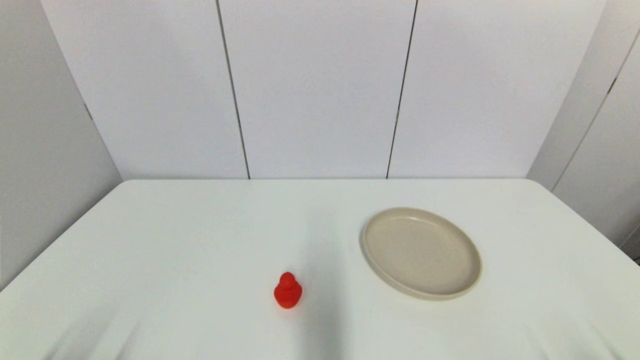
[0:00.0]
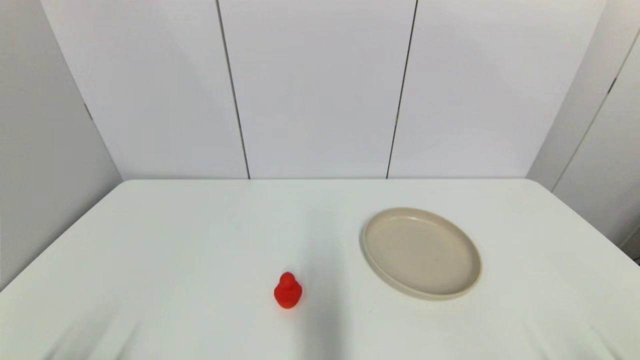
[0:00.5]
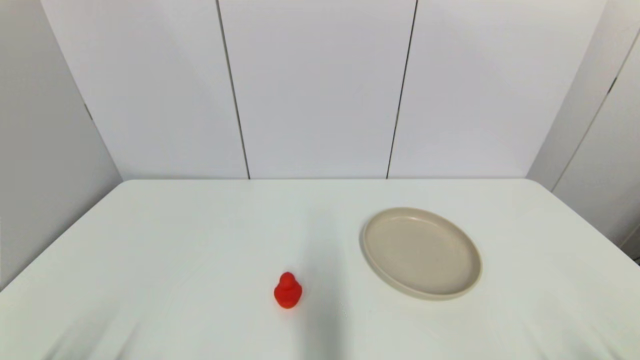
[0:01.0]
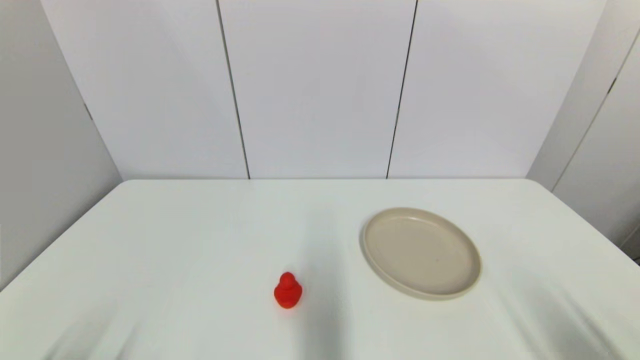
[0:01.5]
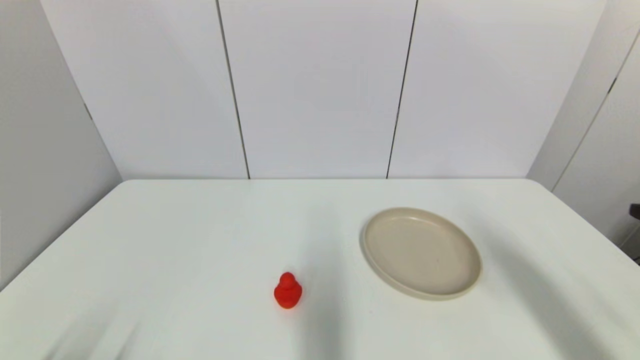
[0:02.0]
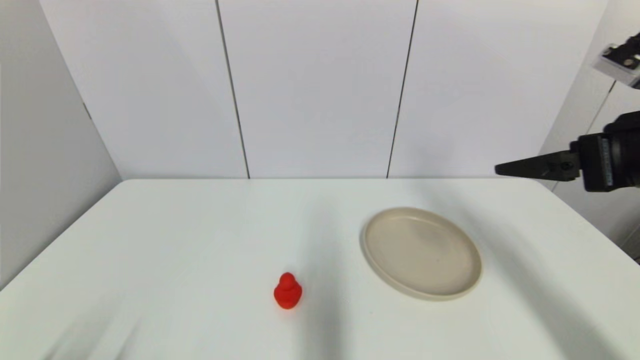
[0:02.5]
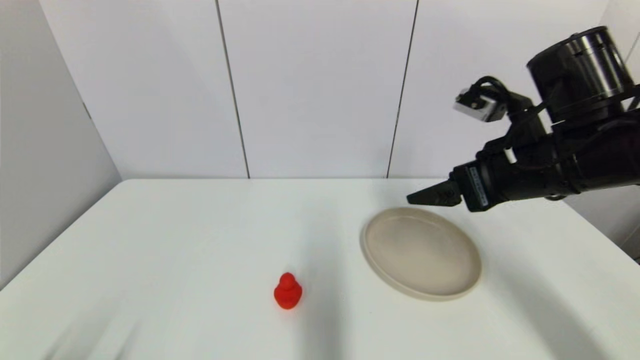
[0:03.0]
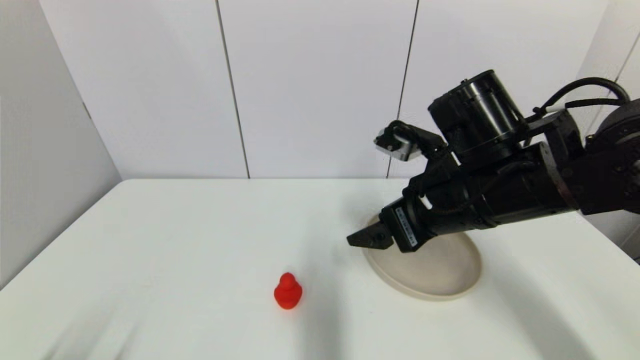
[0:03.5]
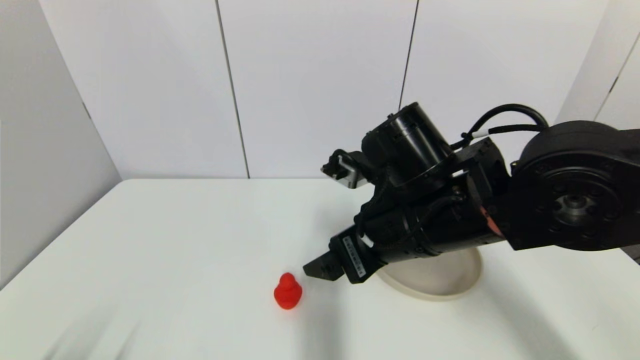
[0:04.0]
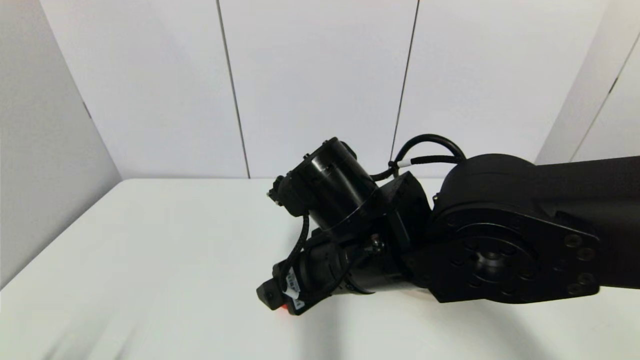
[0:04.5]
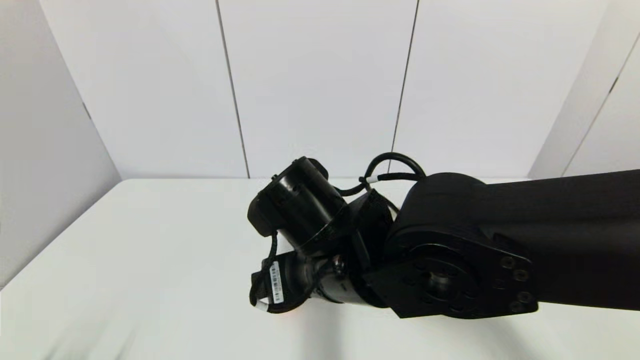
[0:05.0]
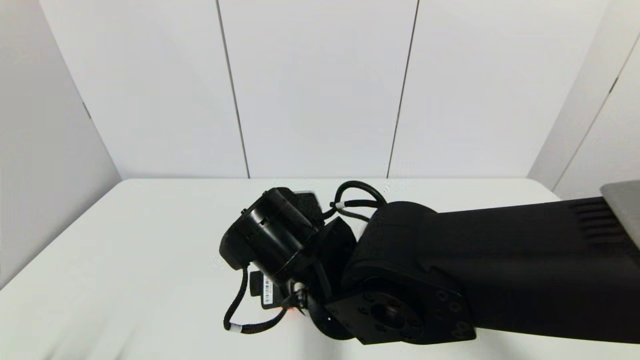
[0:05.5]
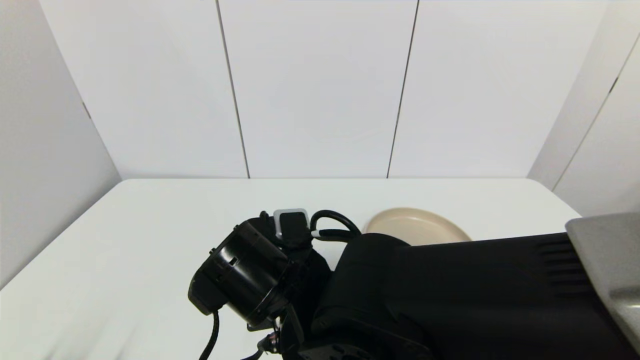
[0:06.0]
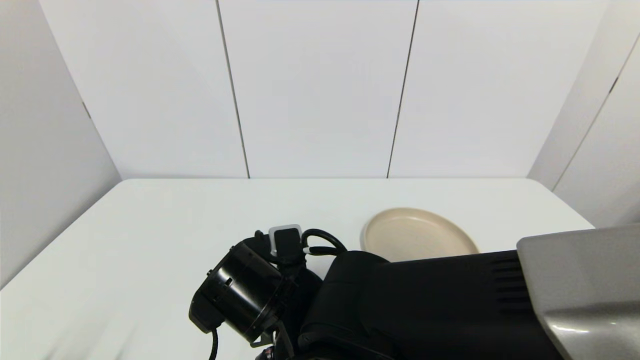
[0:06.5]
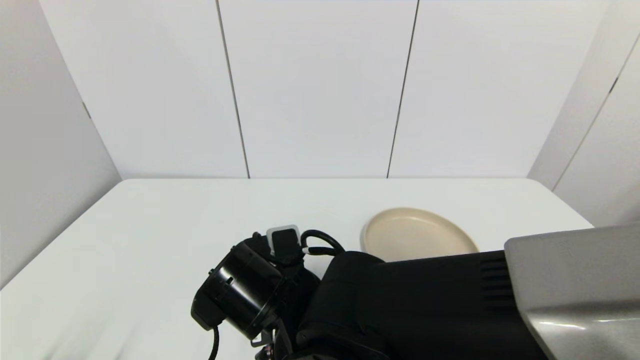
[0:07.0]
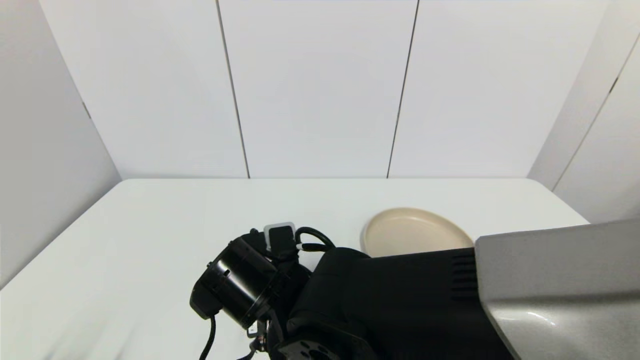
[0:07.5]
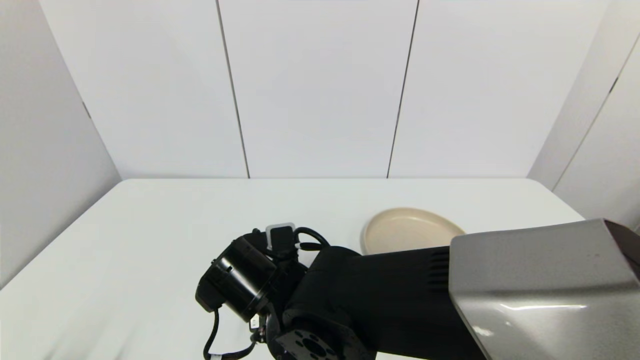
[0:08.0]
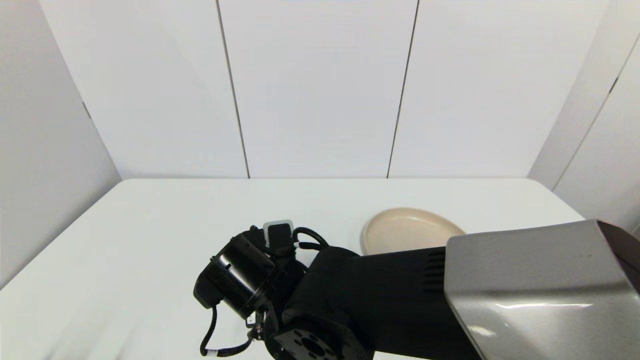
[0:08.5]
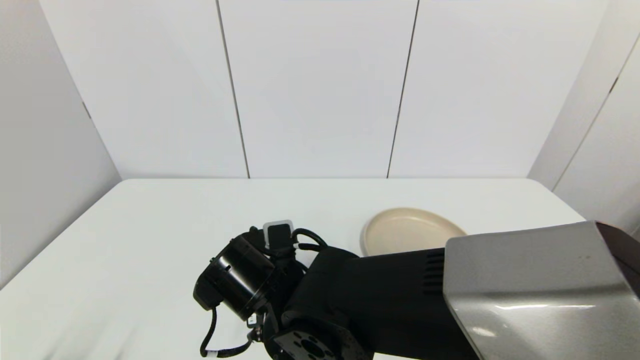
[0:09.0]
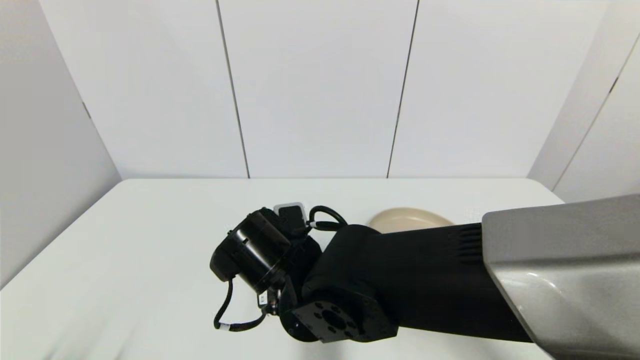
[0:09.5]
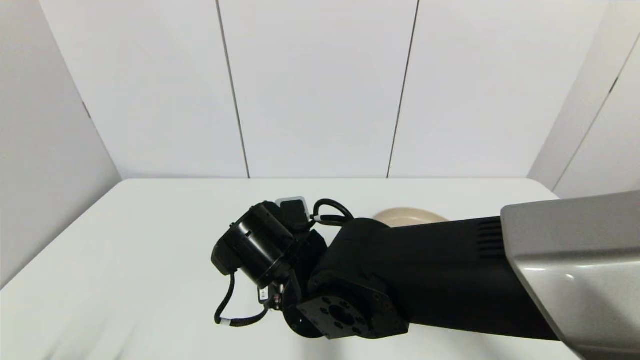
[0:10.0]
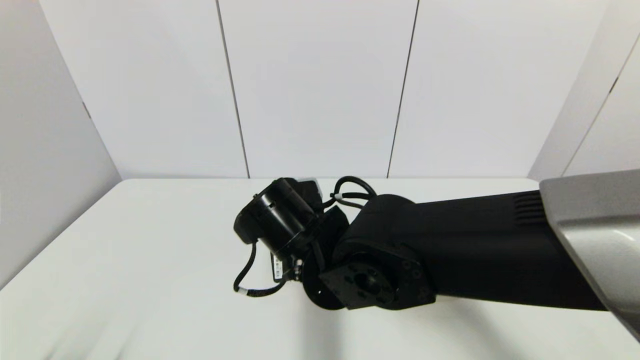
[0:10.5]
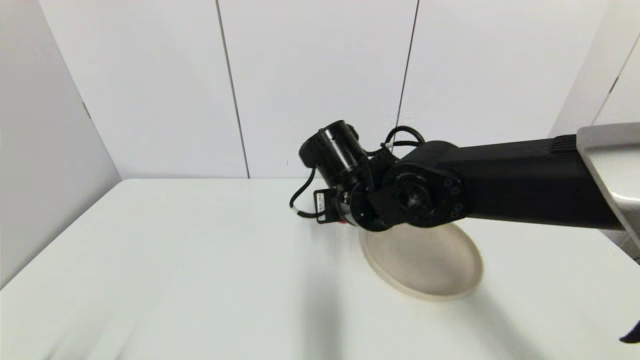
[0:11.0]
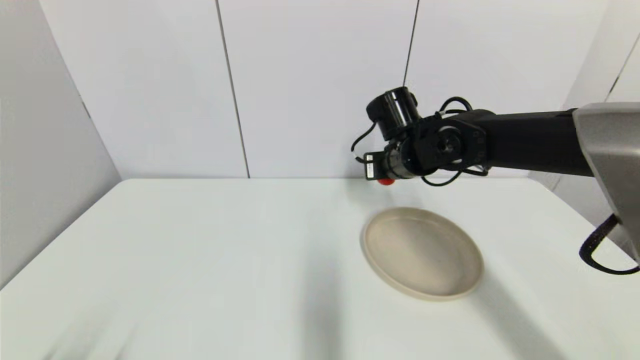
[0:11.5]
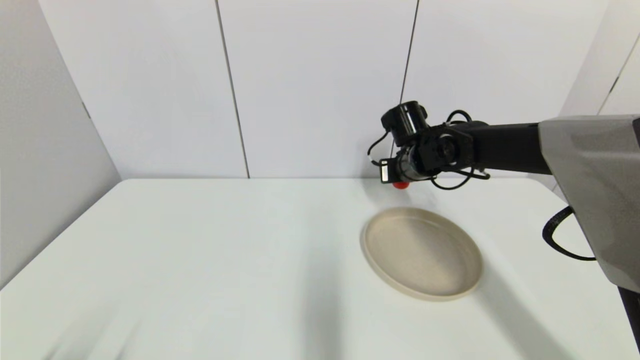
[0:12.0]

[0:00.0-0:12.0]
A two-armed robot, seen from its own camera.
Step, 0:02.0 to 0:10.0: Grasp the red duck with right gripper.
0:00.0 to 0:02.0: The right gripper shifts roughly 25 cm upward and forward.
0:02.0 to 0:04.0: The right gripper heads to the left and forward, covering approximately 30 cm.
0:04.0 to 0:06.0: The right gripper moves to the left and downward, approximately 15 cm.
0:06.0 to 0:08.0: The right gripper ends up about 5 cm from where it was.
0:08.0 to 0:10.0: The right gripper closes.
0:10.0 to 0:12.0: The right gripper travels forward and to the right by some 30 cm.

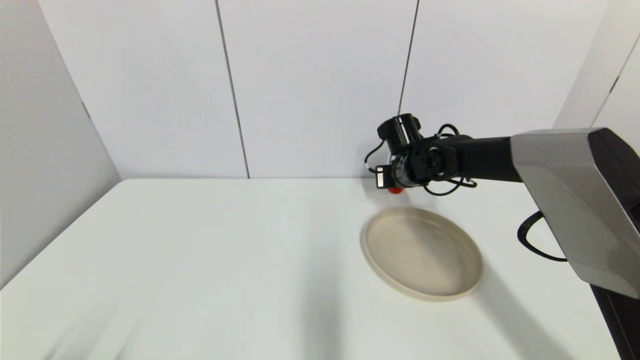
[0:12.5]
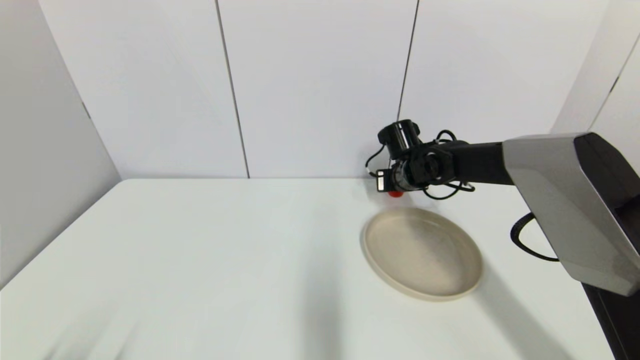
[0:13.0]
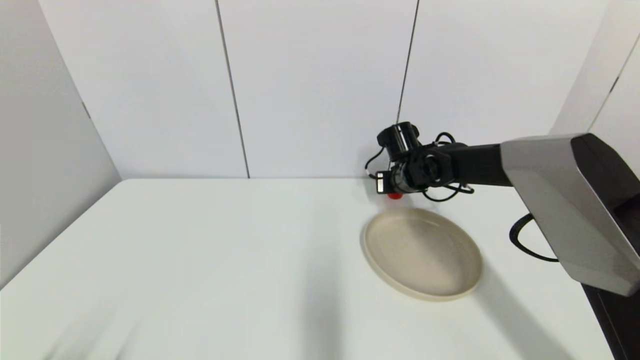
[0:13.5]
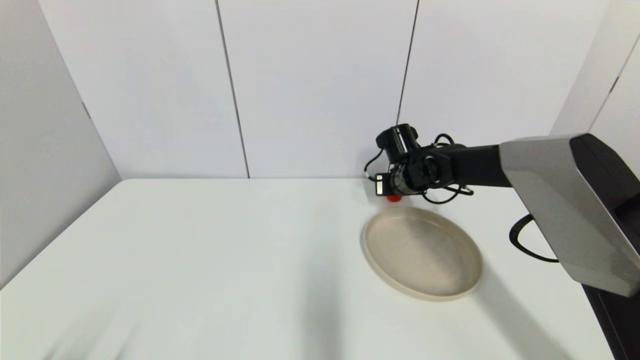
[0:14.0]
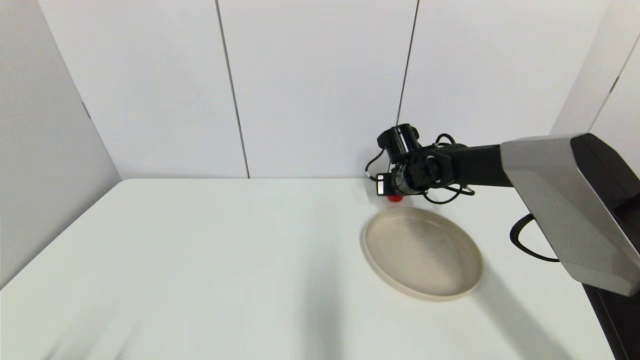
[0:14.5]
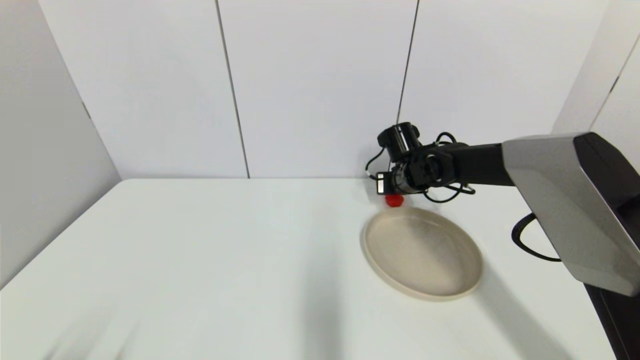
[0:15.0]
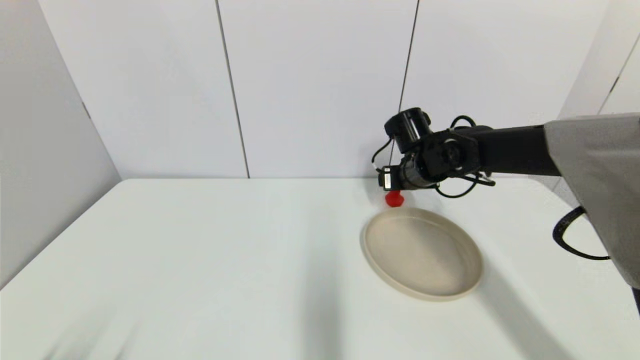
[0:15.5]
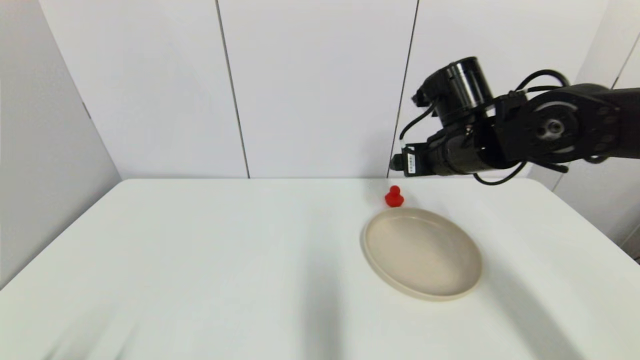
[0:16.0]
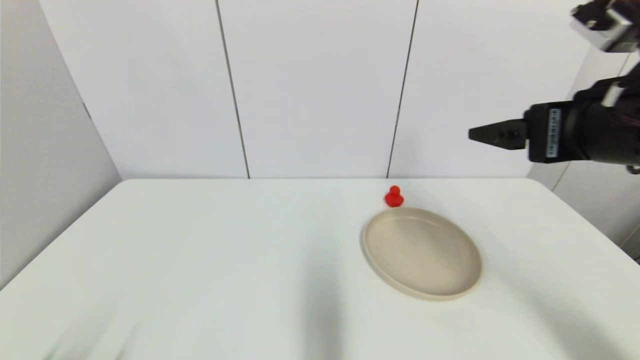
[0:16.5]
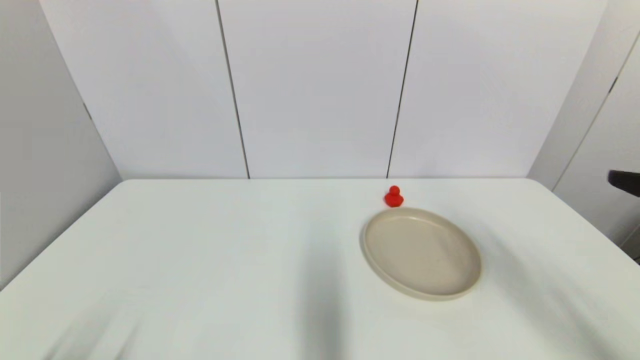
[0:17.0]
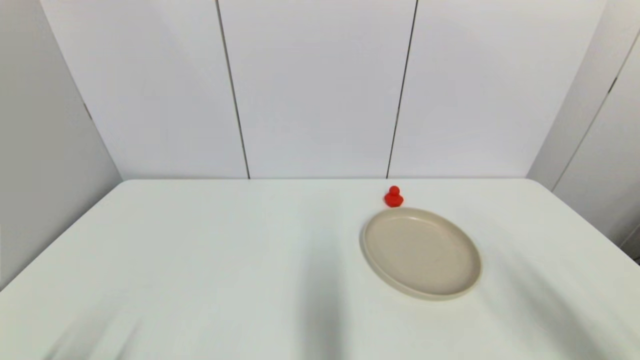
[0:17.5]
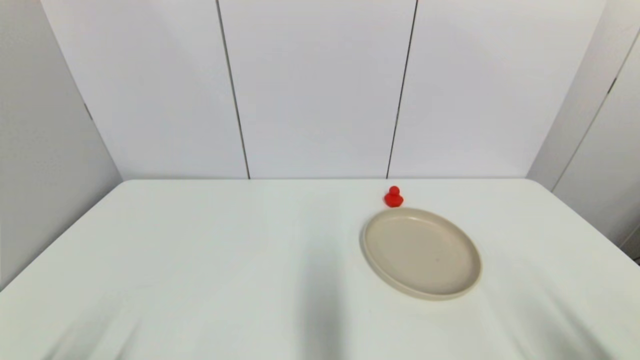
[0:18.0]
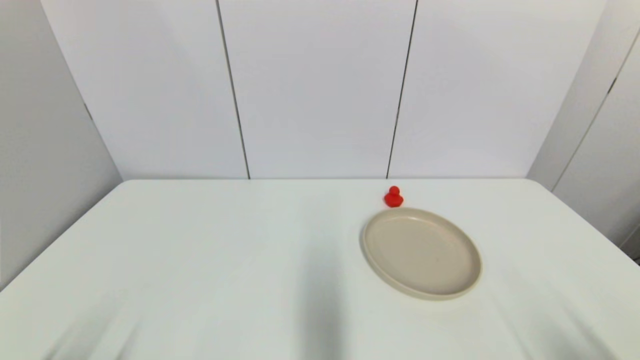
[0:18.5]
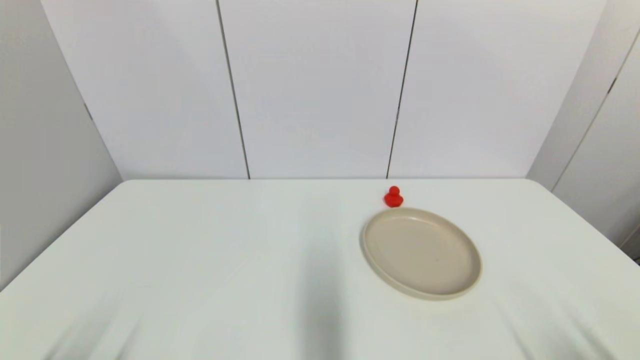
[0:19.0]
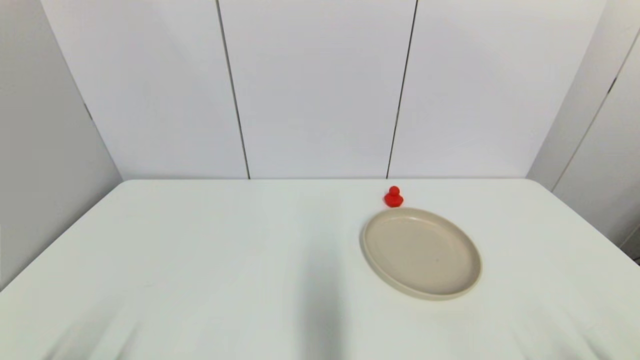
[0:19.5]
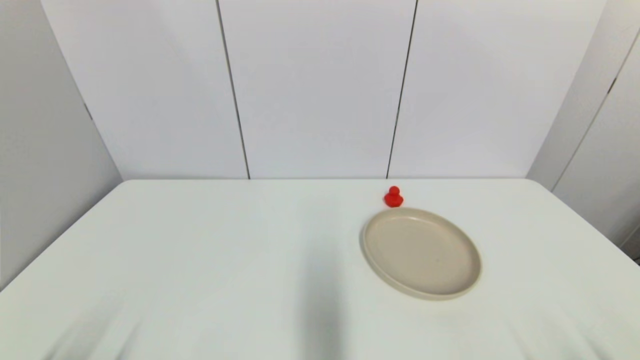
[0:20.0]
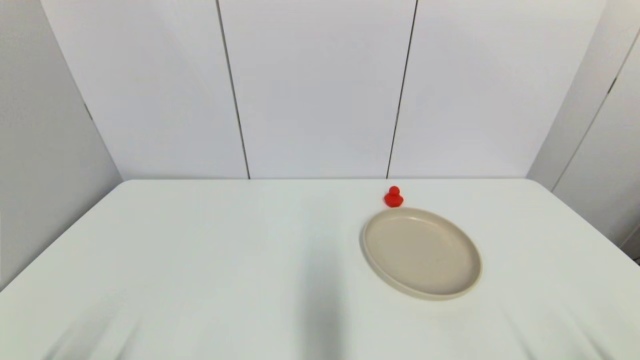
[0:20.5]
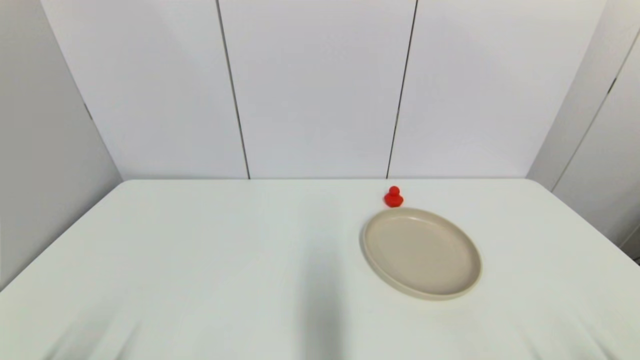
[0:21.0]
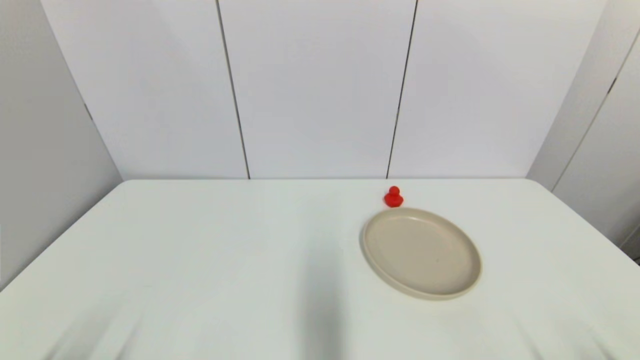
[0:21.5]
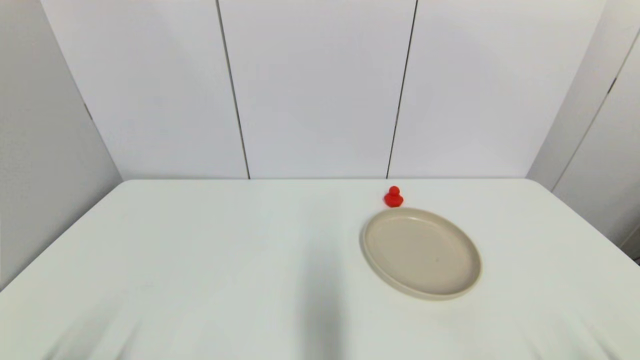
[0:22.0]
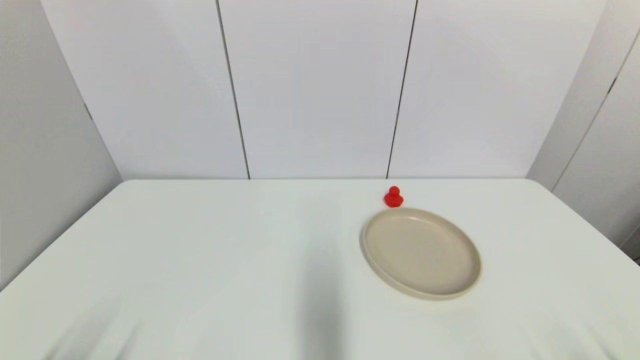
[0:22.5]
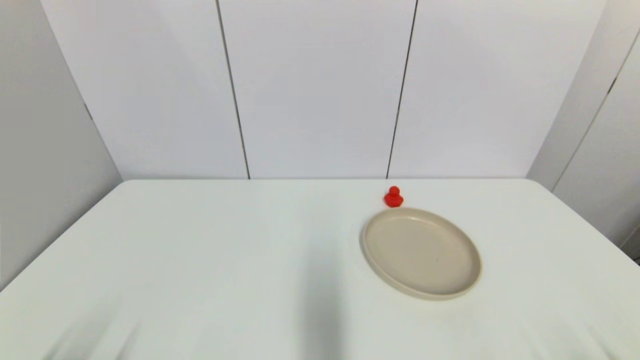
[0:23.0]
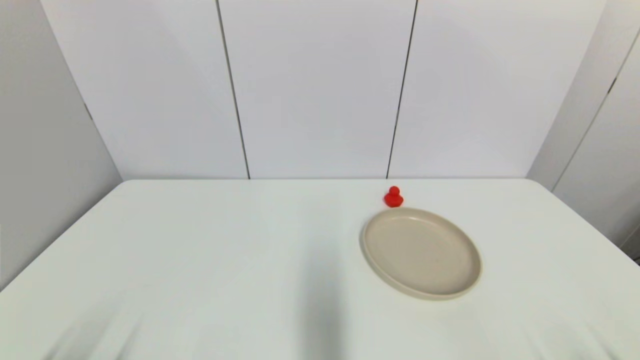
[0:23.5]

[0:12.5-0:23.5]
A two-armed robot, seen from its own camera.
Step, 0:12.5 to 0:15.5: Place the red duck on the table with right gripper.
0:12.5 to 0:14.5: The grippers make only small movements.
0:14.5 to 0:16.0: The right gripper travels backward and upward by approximately 20 cm, and opens up.
0:16.0 to 0:18.0: The right gripper goes roughly 35 cm backward and to the right.
0:18.0 to 0:20.0: The right gripper travels downward by roughly 10 cm.
